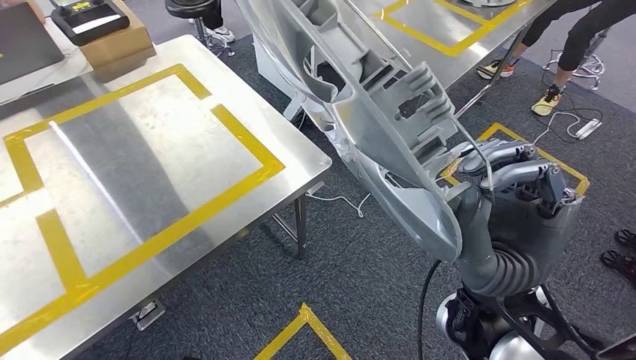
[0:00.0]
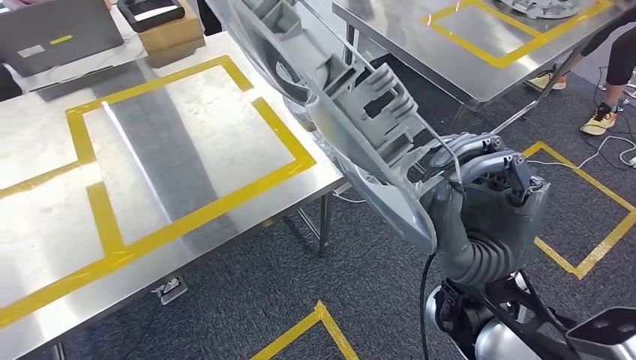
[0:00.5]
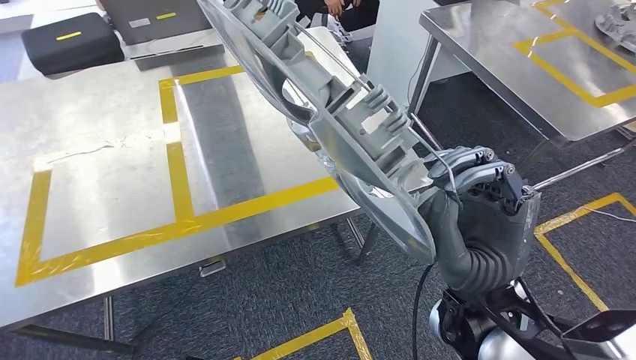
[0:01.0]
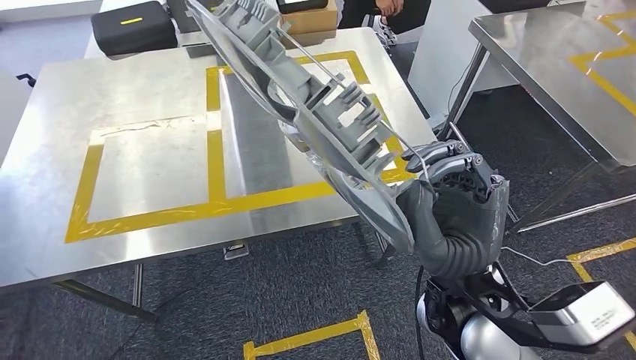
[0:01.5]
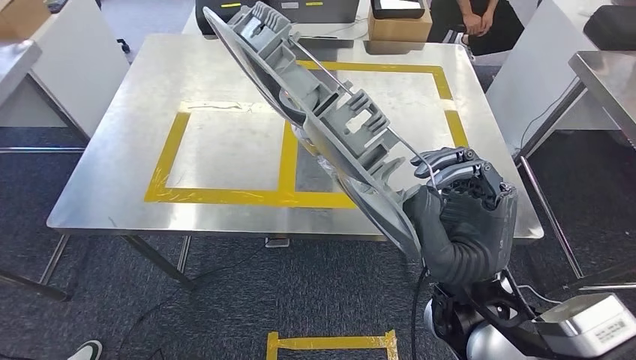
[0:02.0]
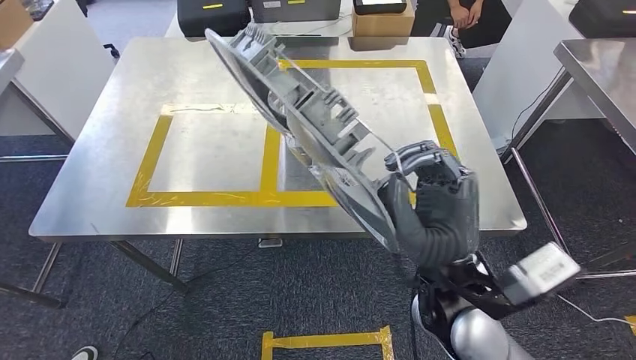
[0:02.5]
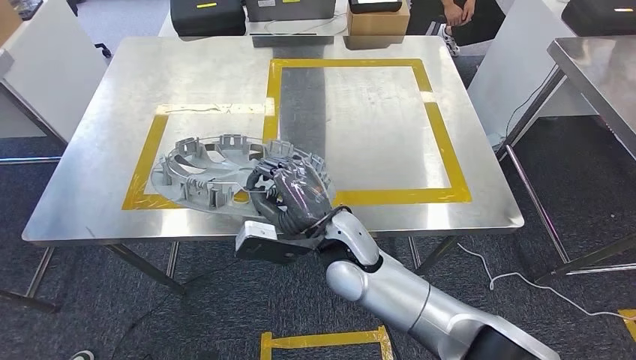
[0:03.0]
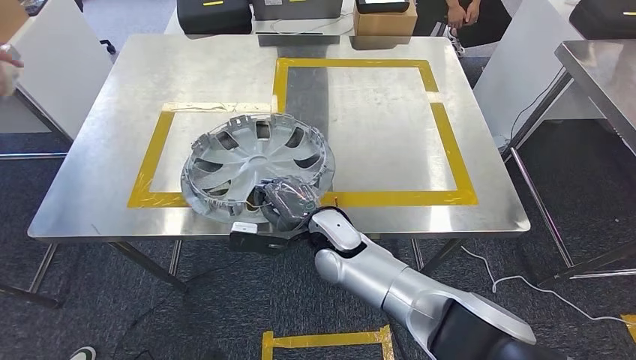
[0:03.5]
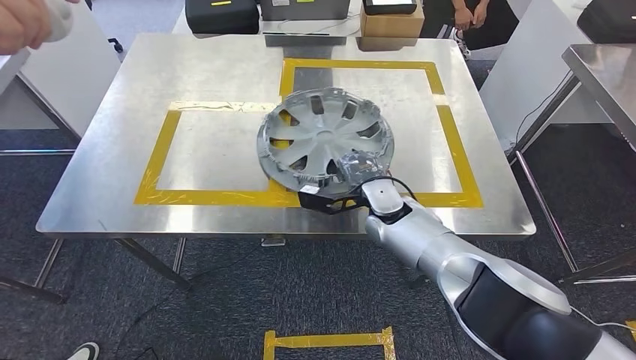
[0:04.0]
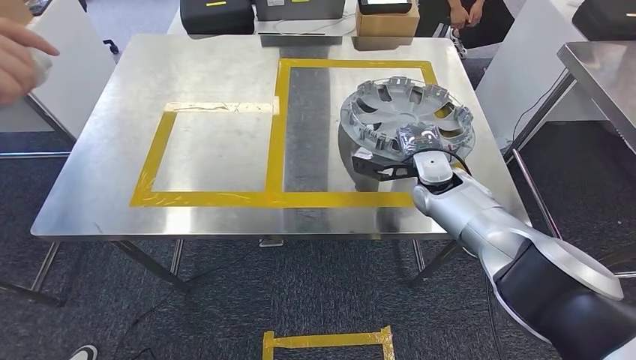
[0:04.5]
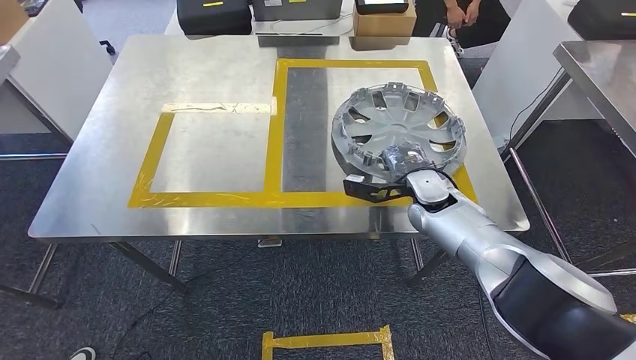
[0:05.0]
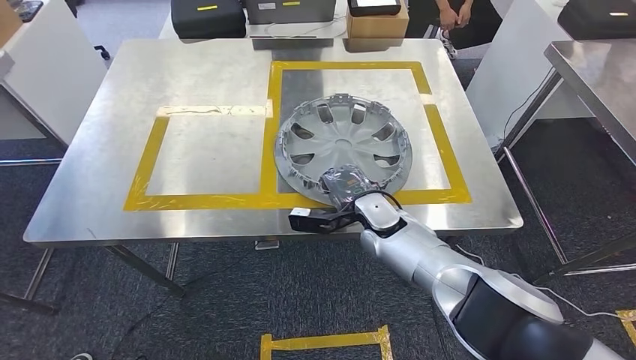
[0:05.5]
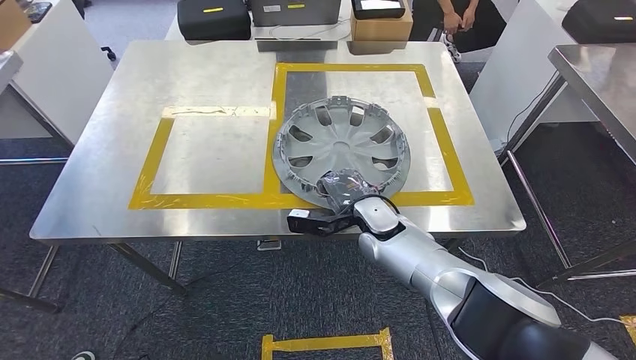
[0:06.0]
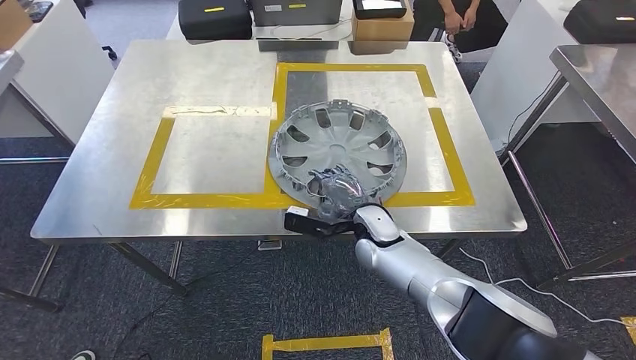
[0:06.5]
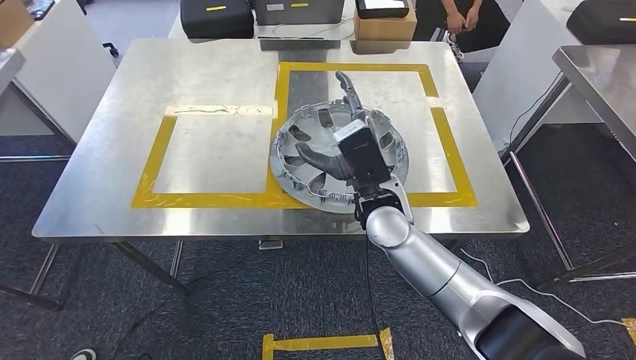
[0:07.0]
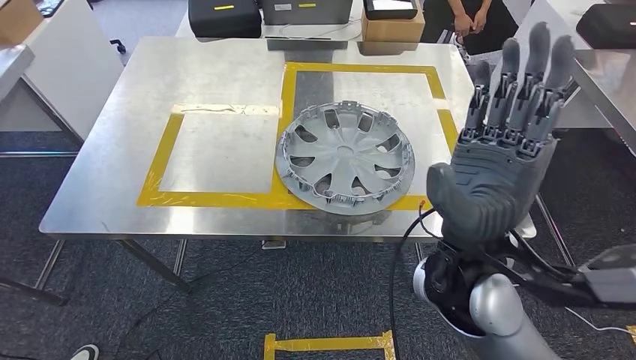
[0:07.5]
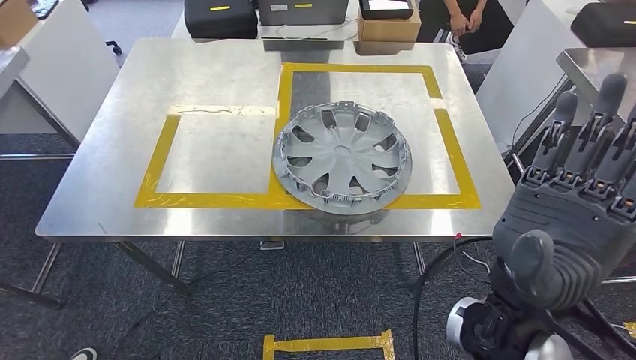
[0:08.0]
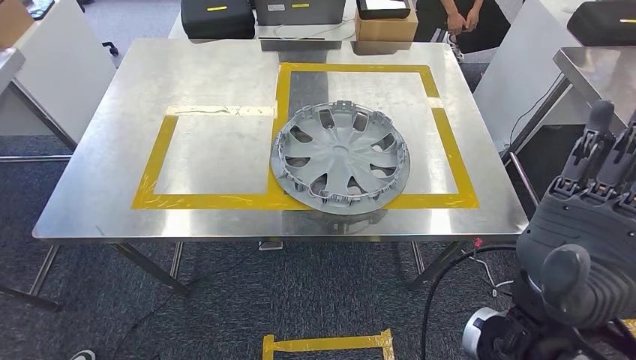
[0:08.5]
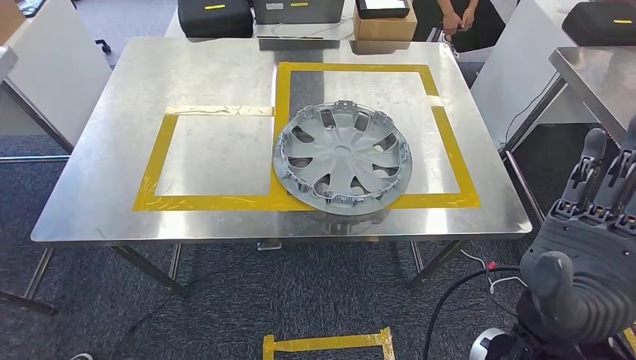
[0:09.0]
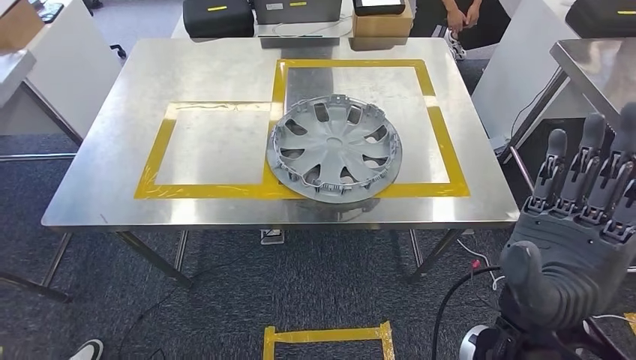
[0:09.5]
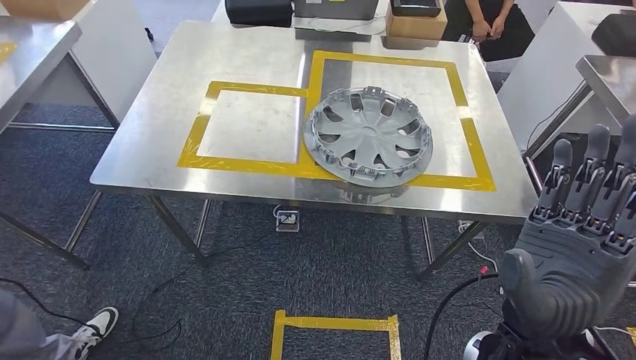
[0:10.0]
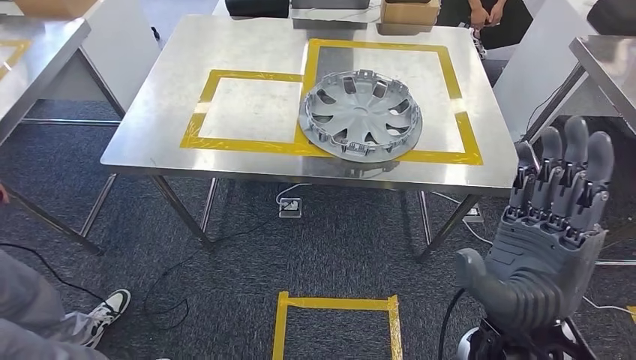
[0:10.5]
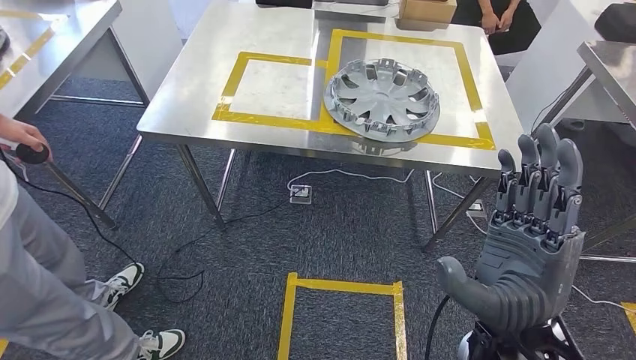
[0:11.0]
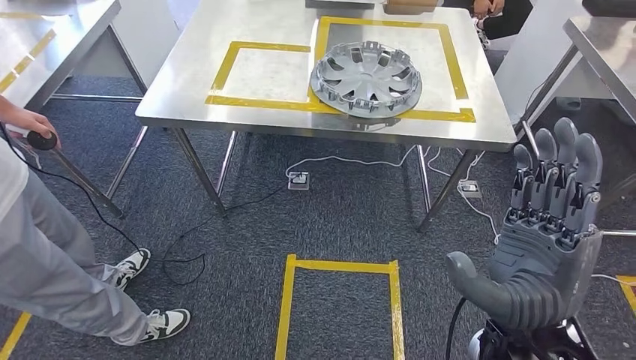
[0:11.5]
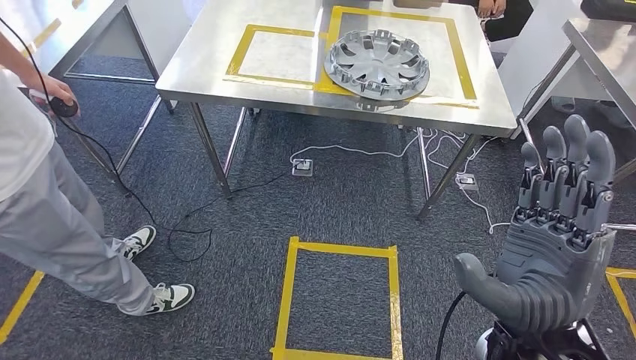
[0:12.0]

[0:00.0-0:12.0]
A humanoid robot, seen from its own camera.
Step, 0:00.0 to 0:02.5: Move the small component to the workbench.
Step, 0:03.0 to 0:09.5: Insert the small component into the corresponding slot on the workbench.

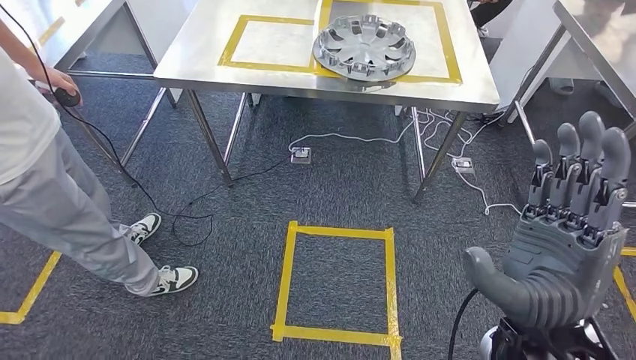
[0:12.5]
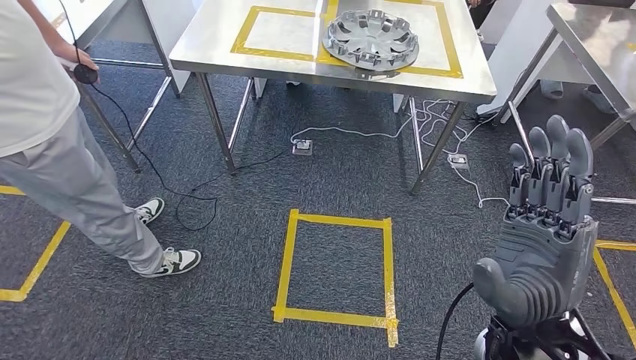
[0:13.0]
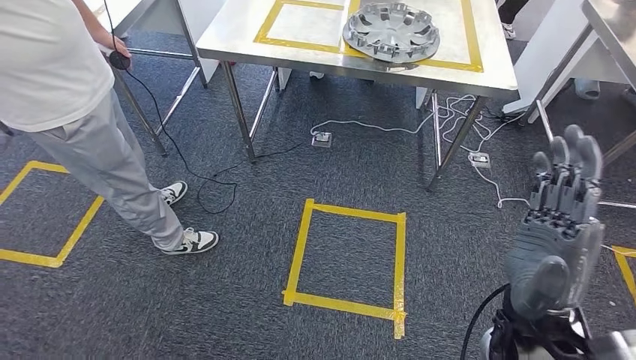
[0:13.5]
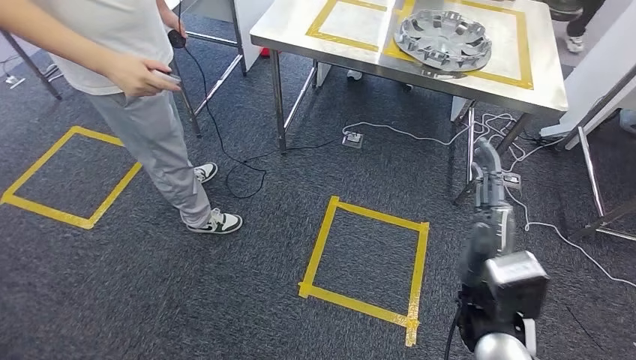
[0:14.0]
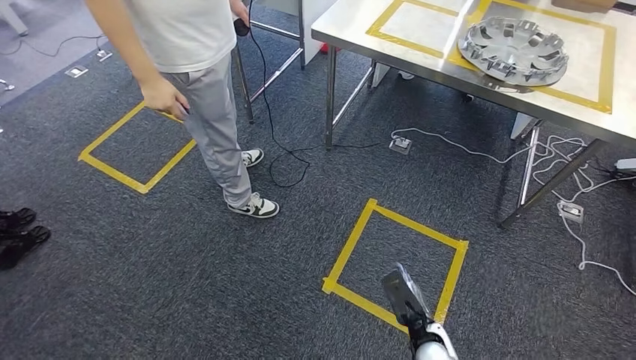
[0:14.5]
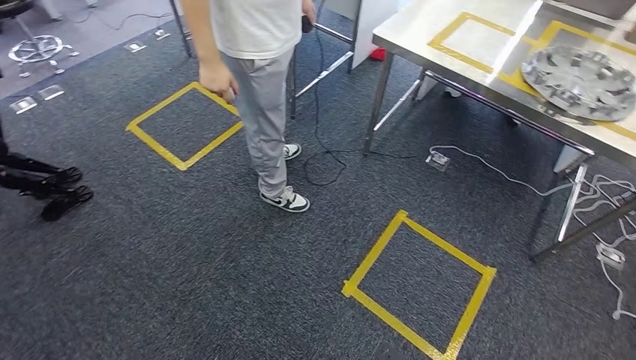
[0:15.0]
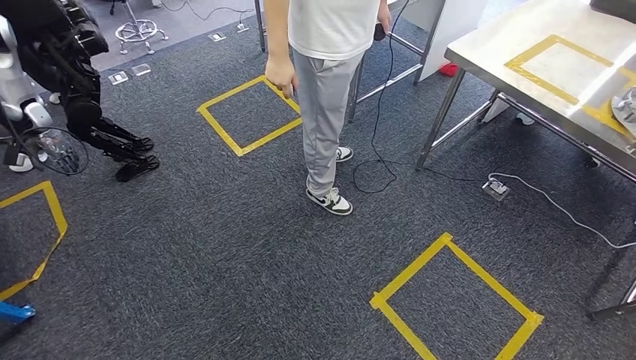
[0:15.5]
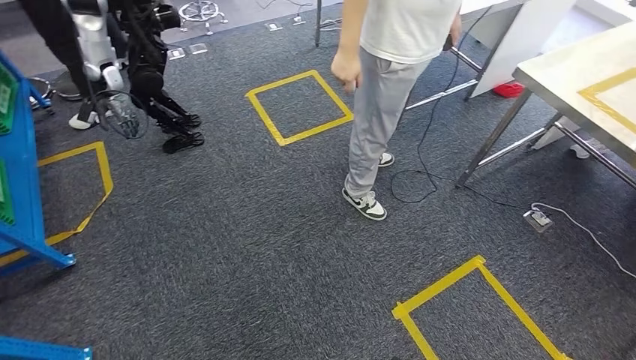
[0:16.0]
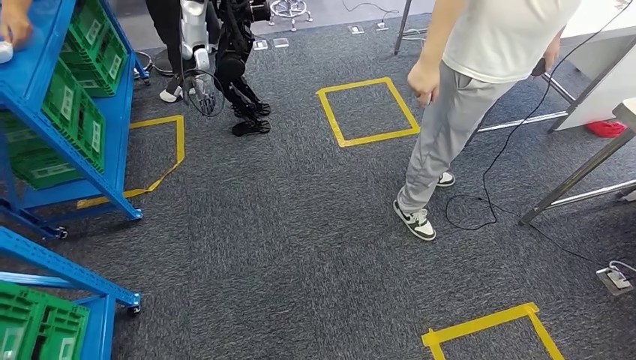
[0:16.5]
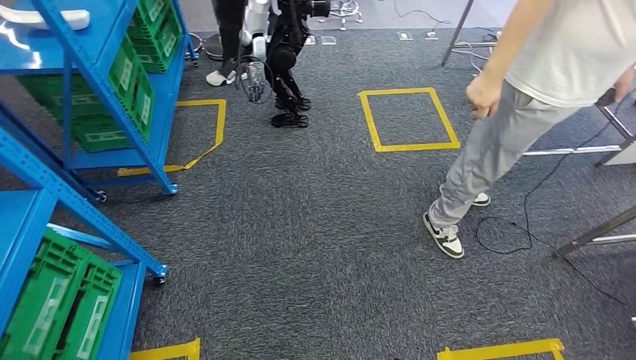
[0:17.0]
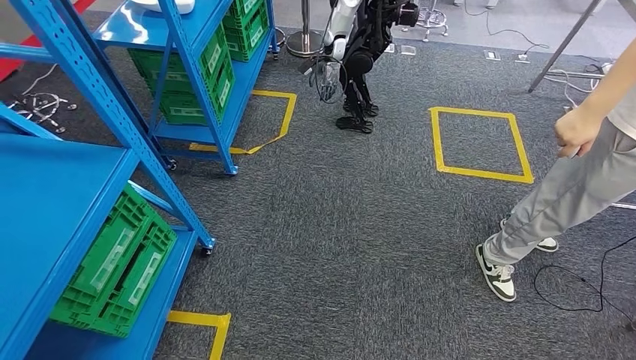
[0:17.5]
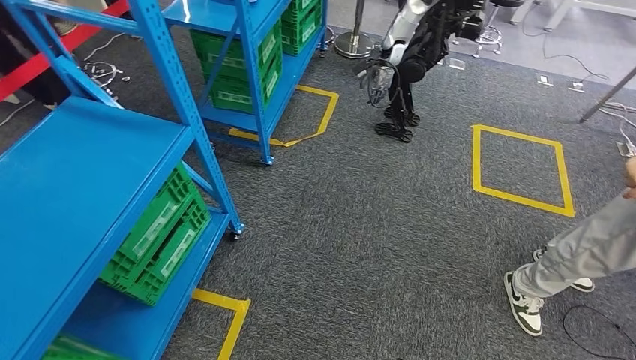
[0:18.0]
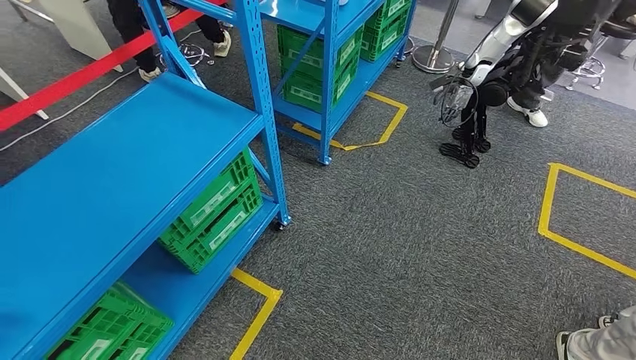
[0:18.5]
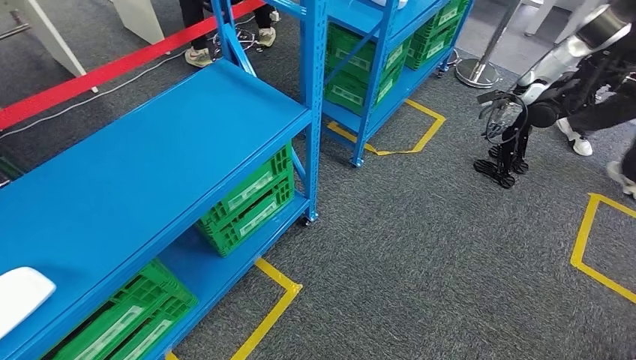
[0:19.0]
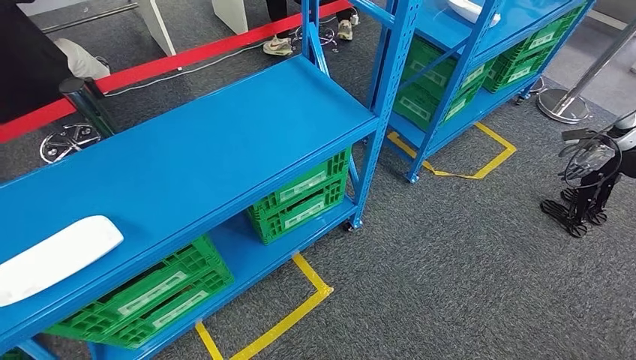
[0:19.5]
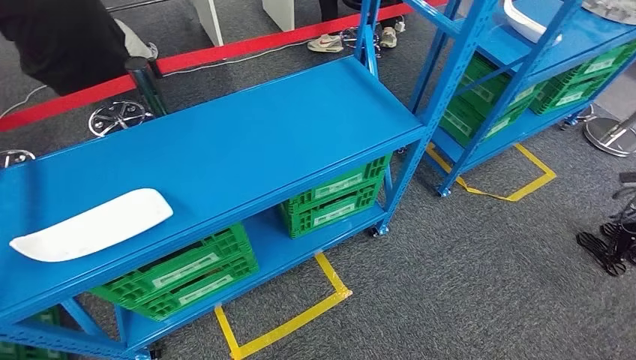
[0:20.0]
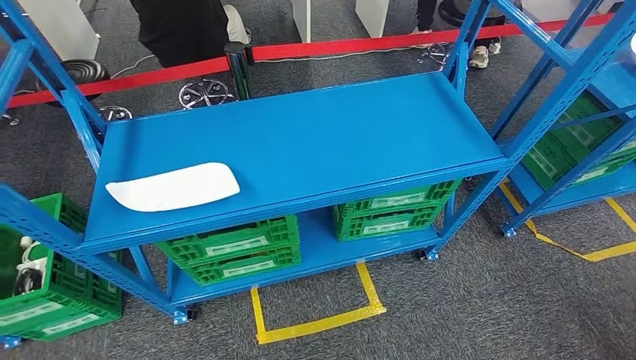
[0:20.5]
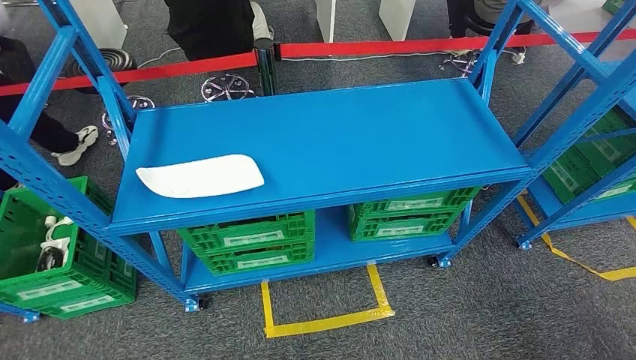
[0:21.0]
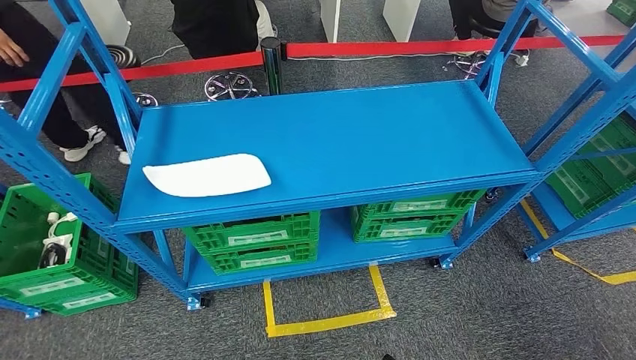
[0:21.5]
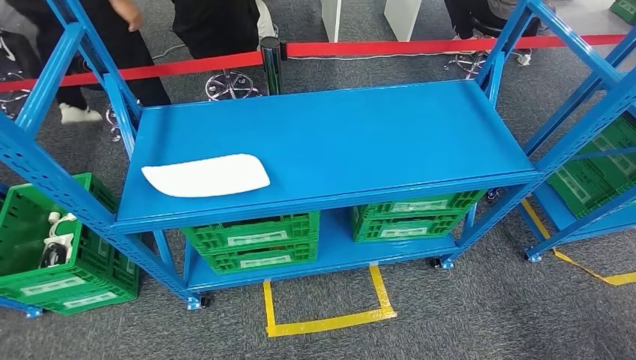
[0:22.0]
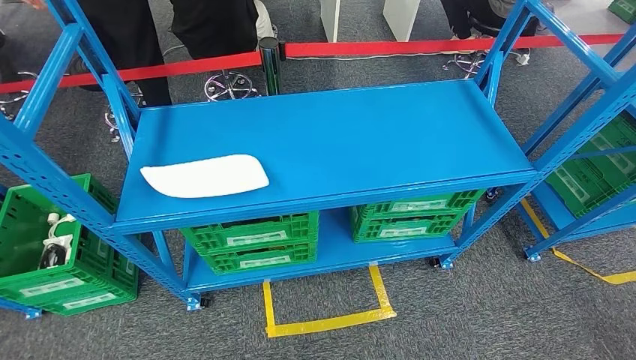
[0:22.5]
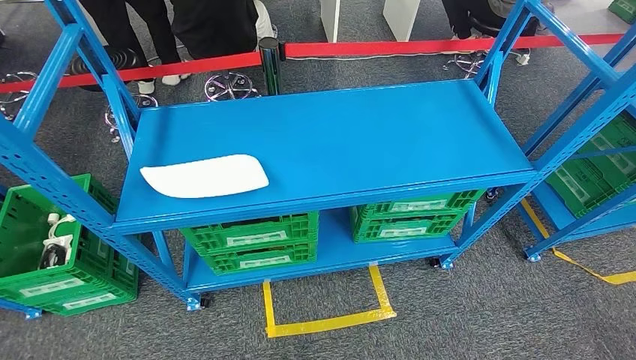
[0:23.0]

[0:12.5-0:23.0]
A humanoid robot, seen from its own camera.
Step, 0:12.5 to 0:23.0: Return to the initial position at the workbench.
